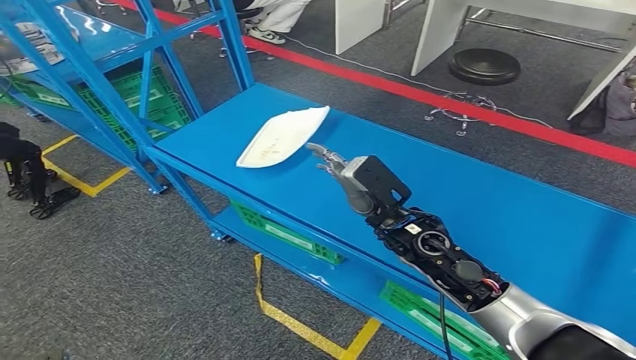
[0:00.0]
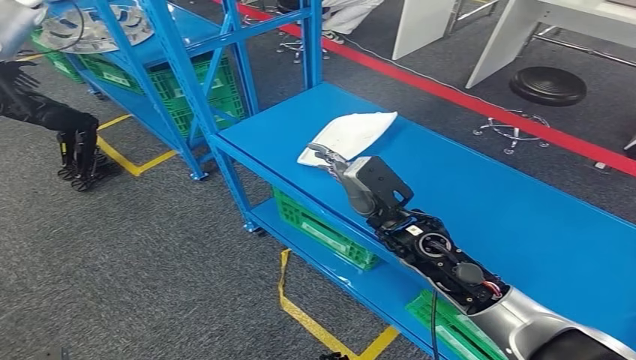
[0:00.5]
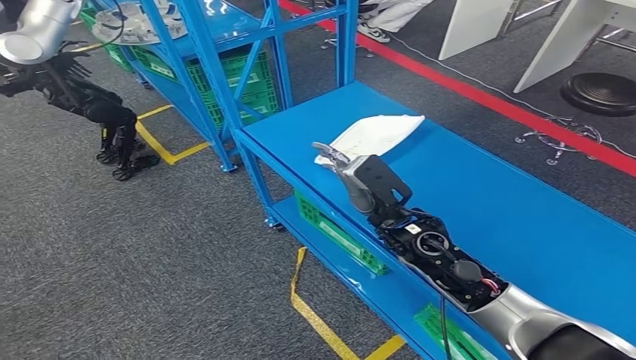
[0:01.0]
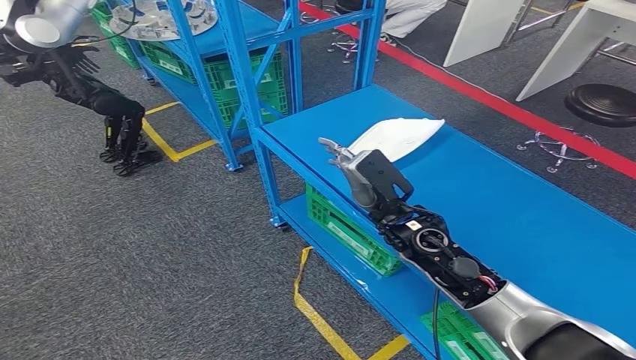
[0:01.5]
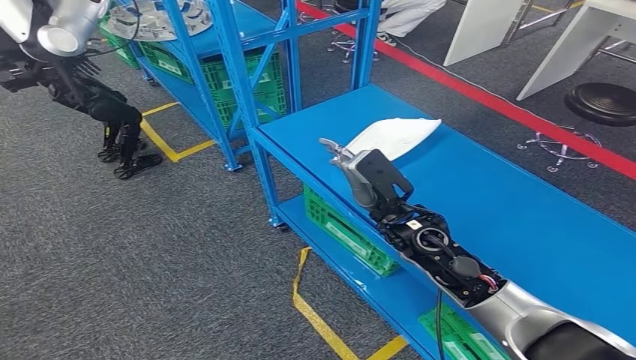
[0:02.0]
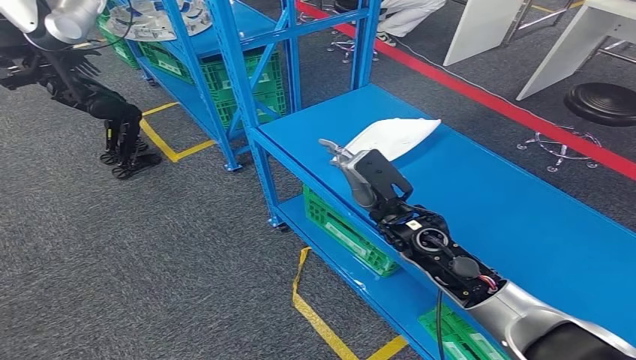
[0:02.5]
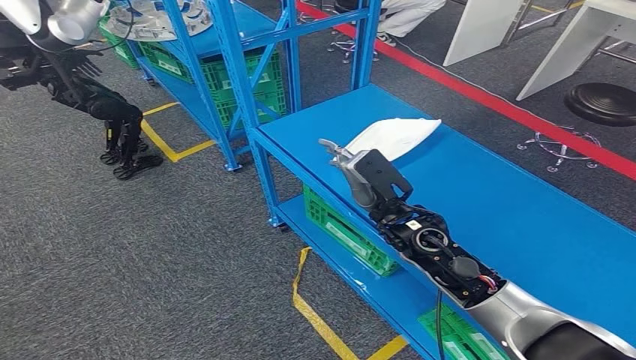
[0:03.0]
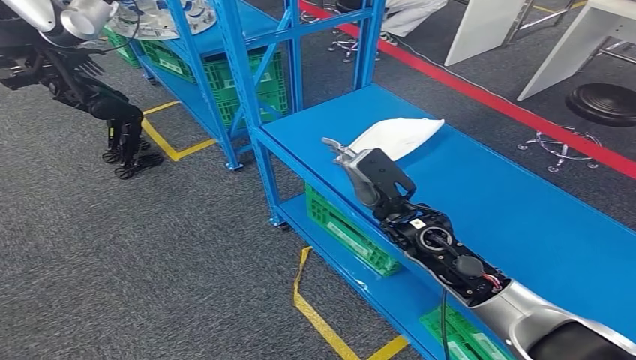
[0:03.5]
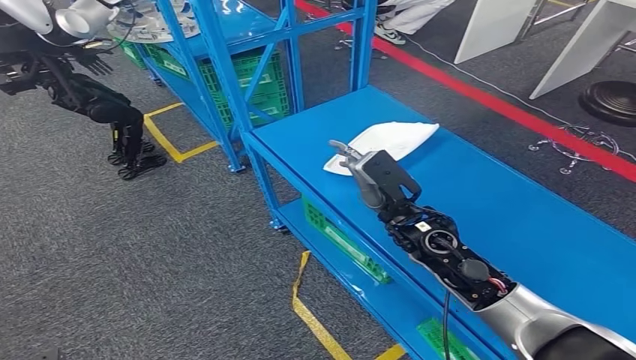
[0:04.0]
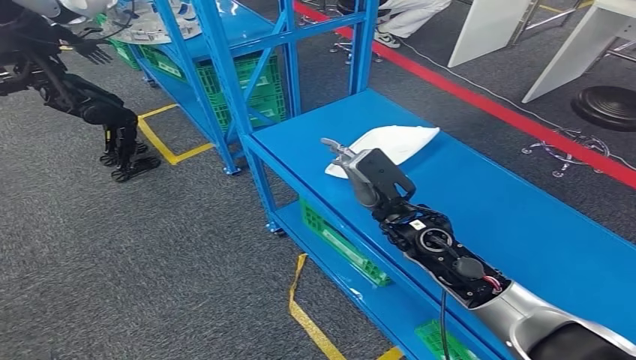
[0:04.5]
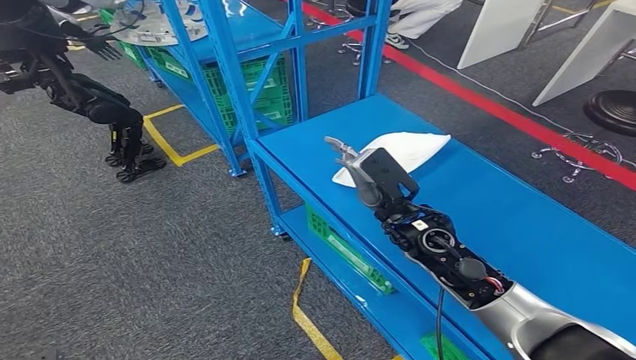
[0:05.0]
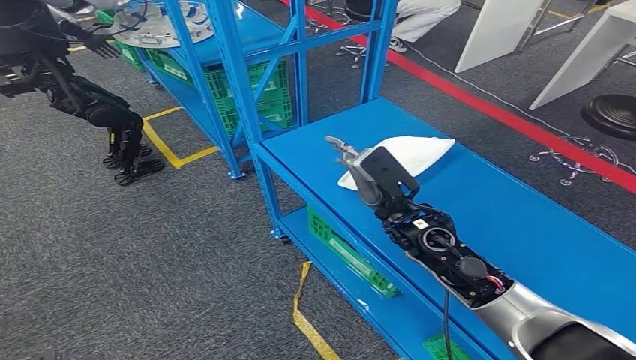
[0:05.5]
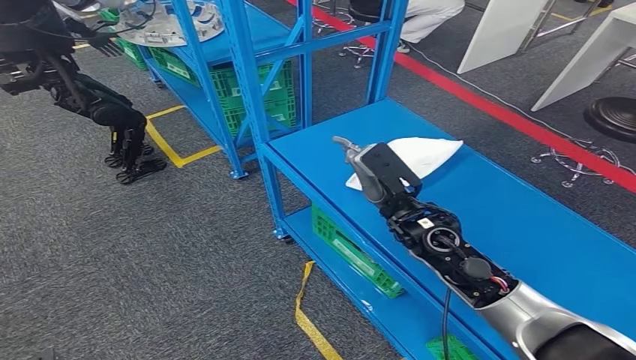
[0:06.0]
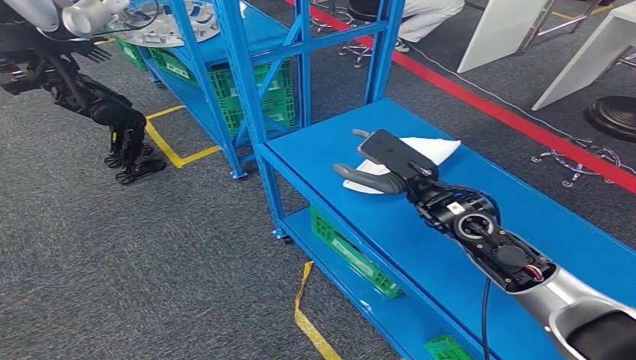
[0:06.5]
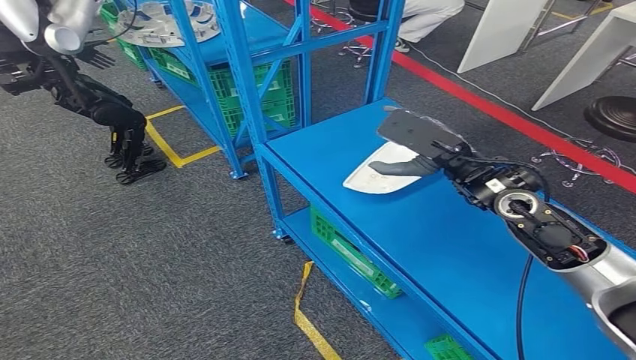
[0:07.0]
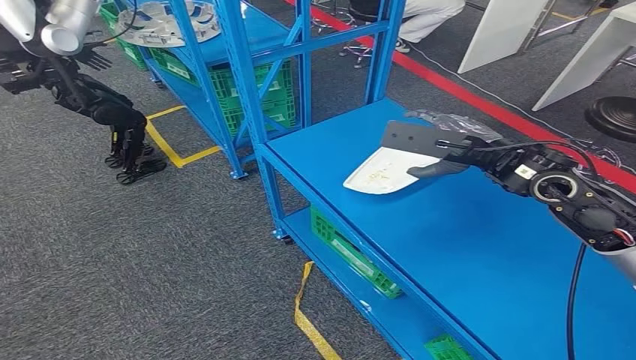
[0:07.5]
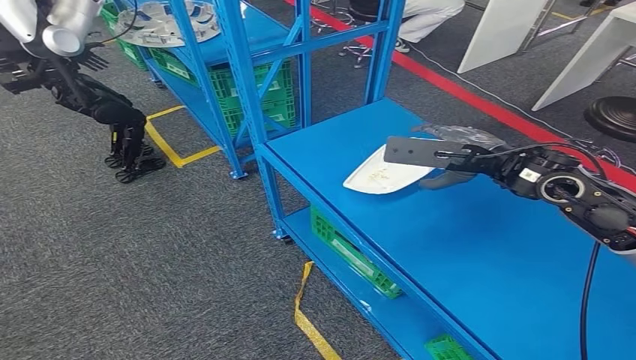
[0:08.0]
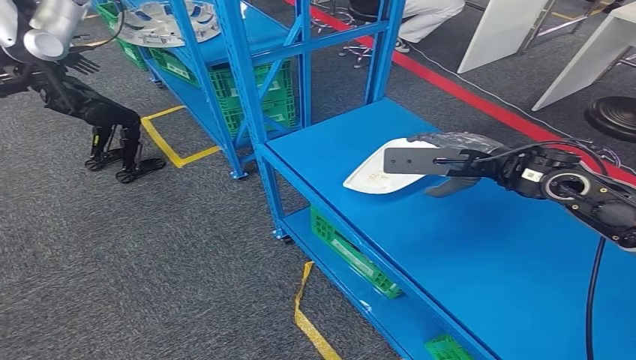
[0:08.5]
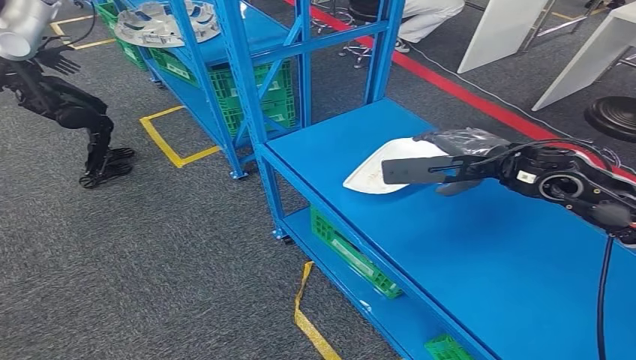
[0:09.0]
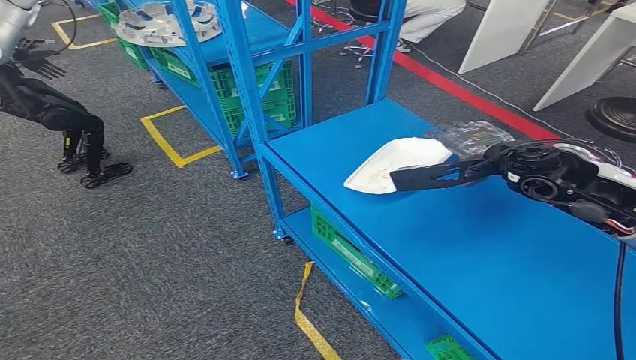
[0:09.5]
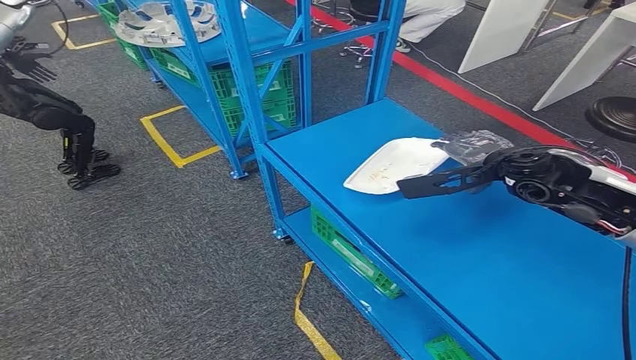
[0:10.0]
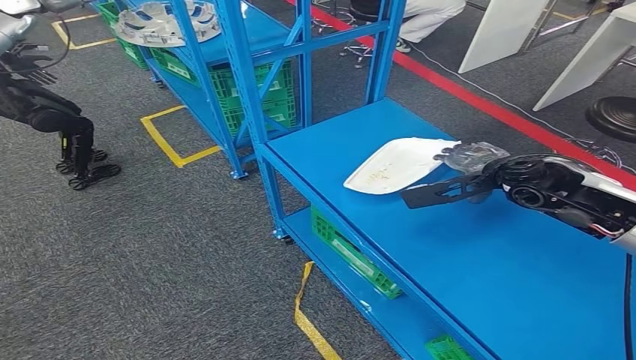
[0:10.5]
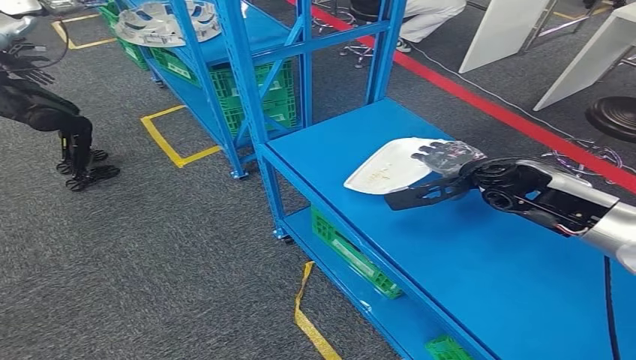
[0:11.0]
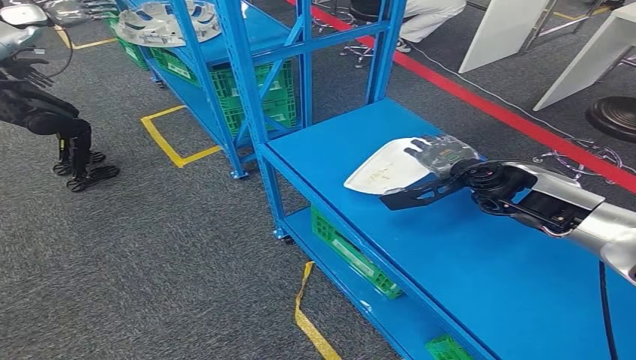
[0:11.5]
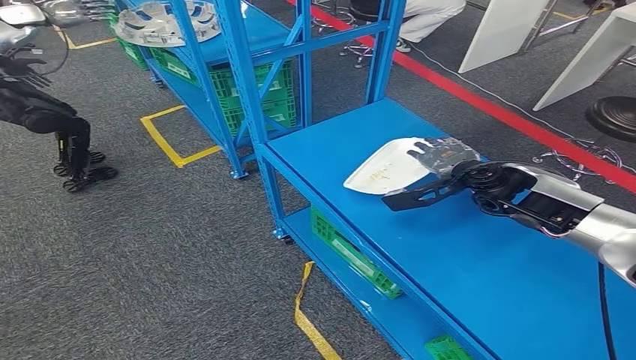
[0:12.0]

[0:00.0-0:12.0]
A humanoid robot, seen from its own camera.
0:02.0 to 0:04.0: The two hands keep their place.
0:06.0 to 0:08.0: The left hand shifts by some 5 cm, while the right hand is displaced to the right and upward by some 15 cm.
0:08.0 to 0:10.0: The right hand changes place by roughly 5 cm.
0:10.0 to 0:12.0: The right hand goes roughly 5 cm downward.

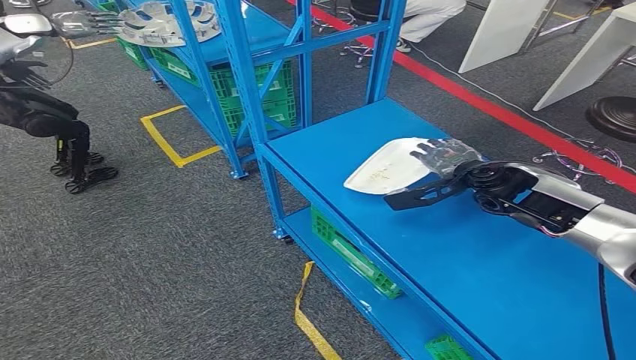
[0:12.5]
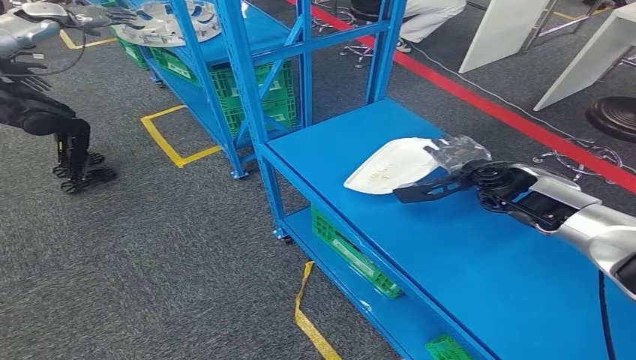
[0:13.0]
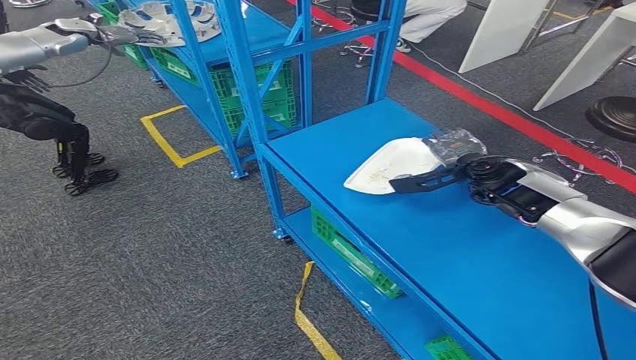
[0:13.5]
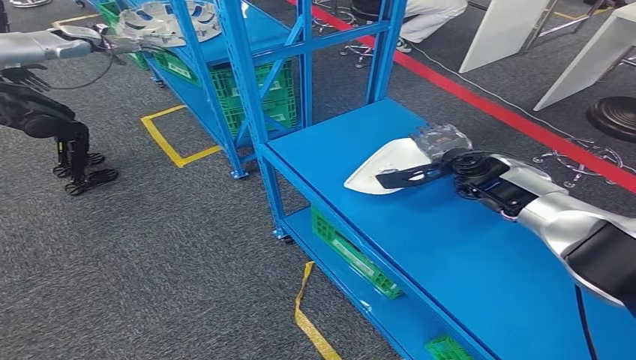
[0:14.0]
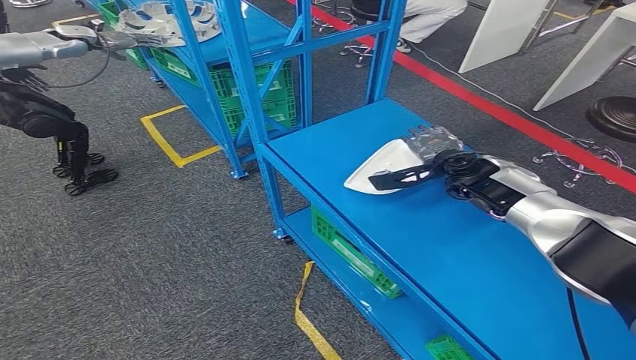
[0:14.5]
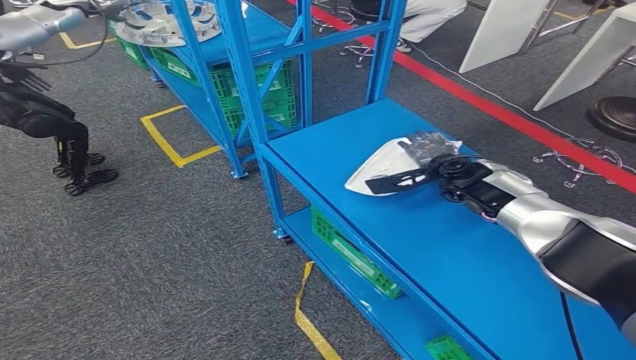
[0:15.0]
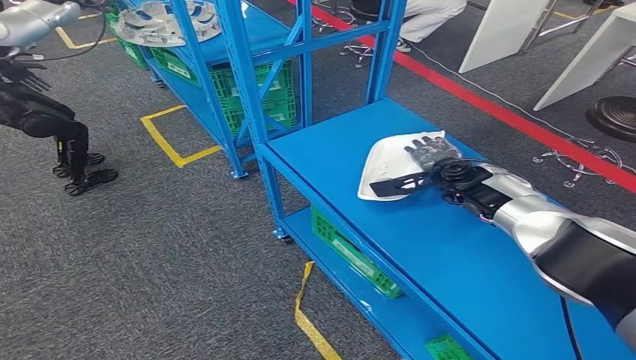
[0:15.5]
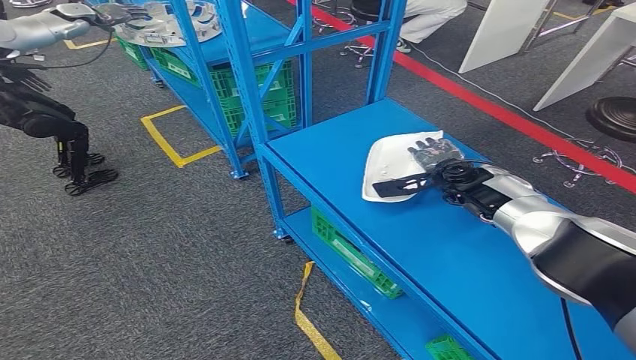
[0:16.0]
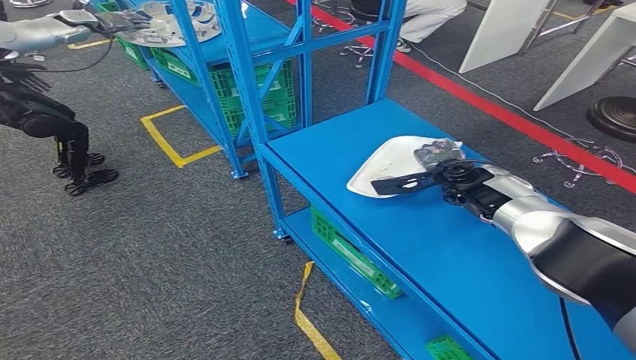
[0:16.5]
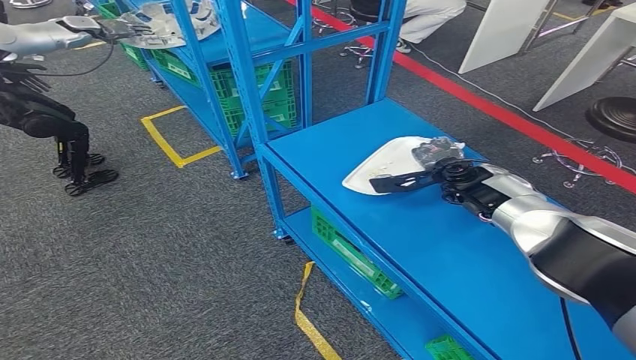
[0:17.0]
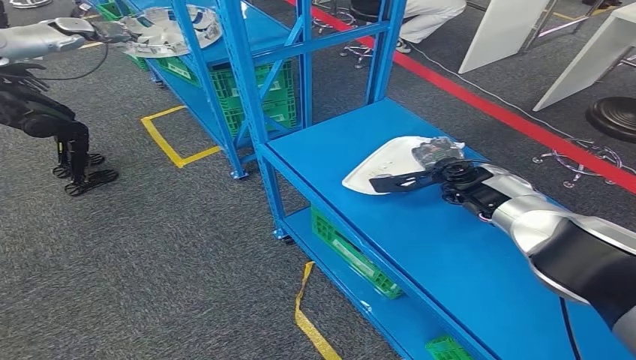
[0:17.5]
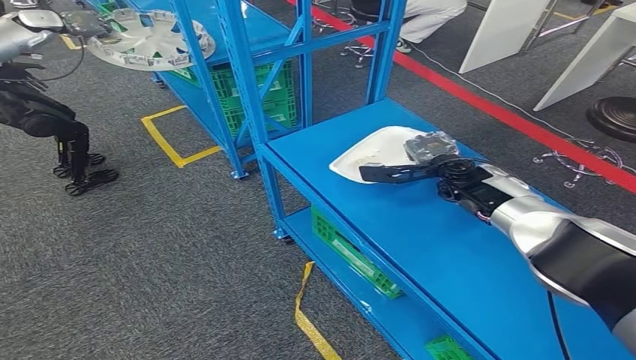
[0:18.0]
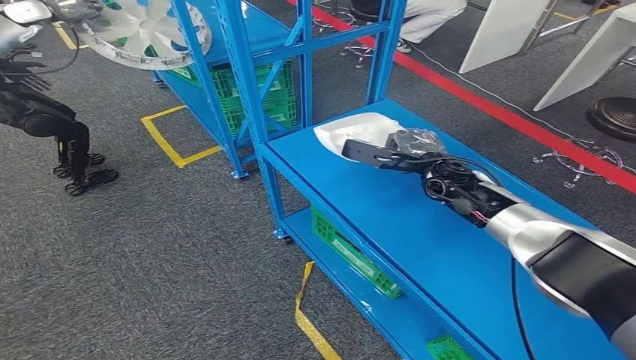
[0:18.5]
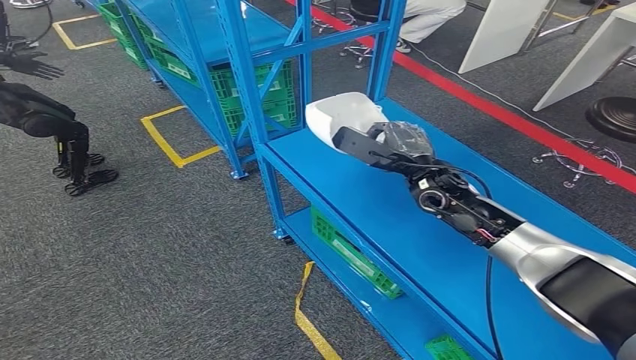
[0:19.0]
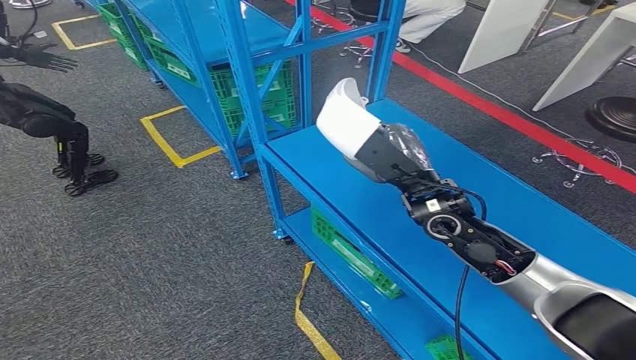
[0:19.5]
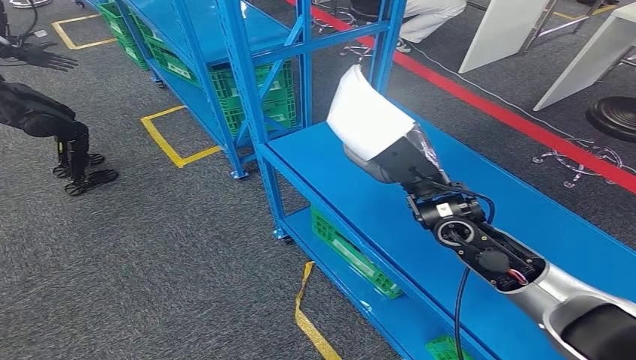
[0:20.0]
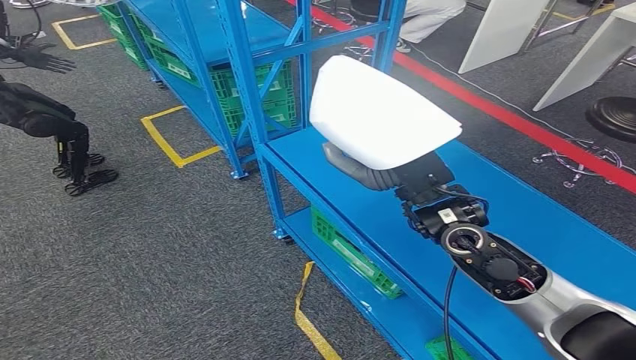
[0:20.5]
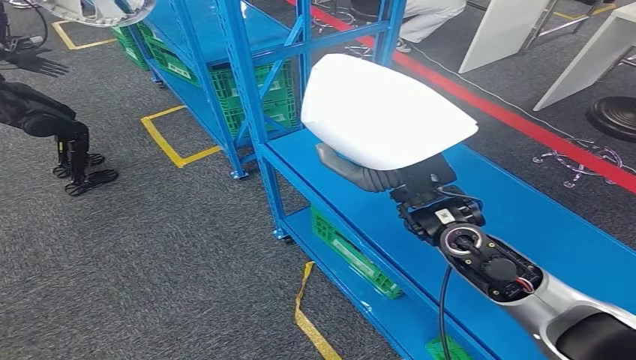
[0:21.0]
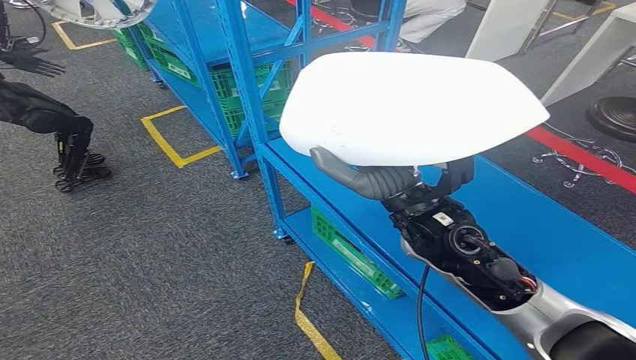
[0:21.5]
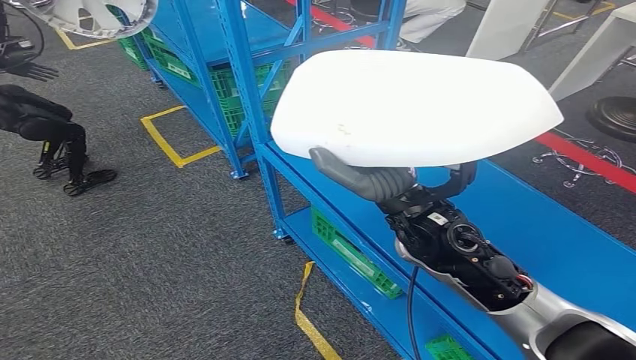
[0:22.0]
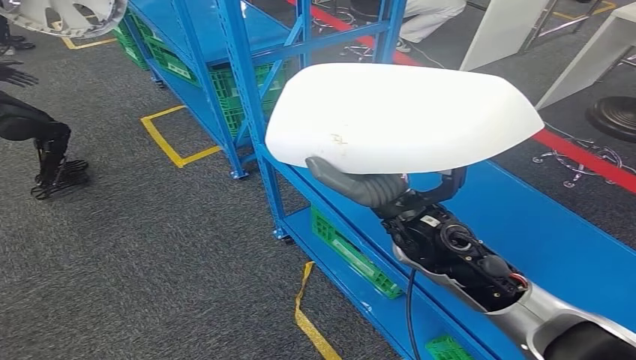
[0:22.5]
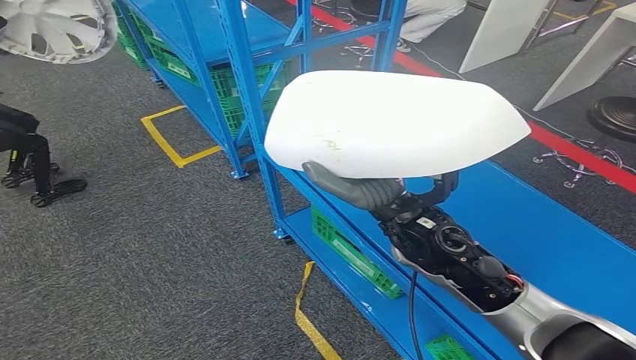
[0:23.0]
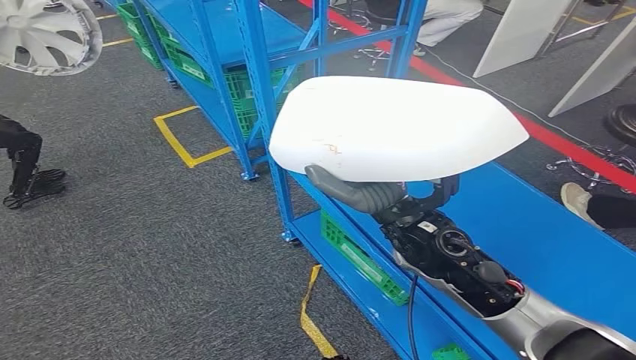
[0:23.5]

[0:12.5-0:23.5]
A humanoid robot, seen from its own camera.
Step, 0:12.5 to 0:19.0: Pick up the small component from the shelf.
0:12.5 to 0:14.5: The right hand goes roughly 5 cm forward.
0:14.5 to 0:18.0: There are only small adjustments of the hands.
0:18.0 to 0:20.0: The right hand shifts some 20 cm backward, to the left and upward.
